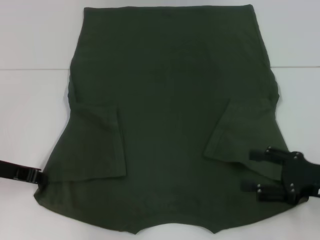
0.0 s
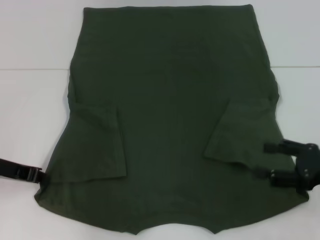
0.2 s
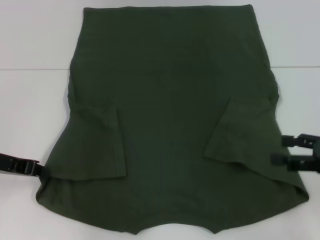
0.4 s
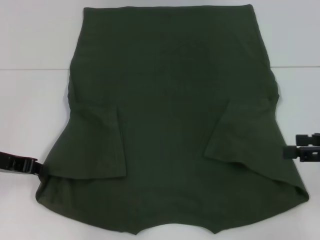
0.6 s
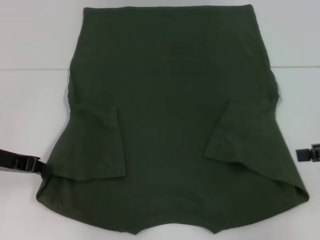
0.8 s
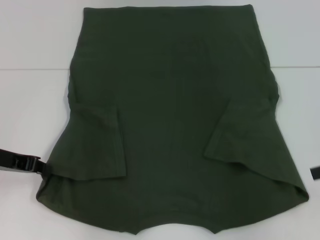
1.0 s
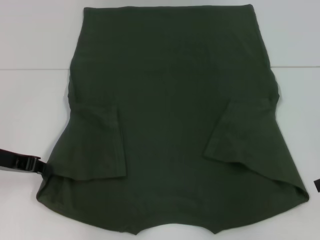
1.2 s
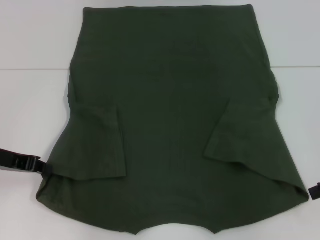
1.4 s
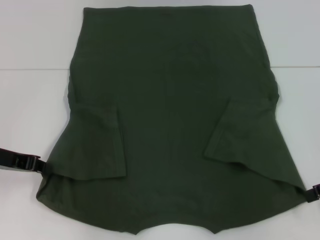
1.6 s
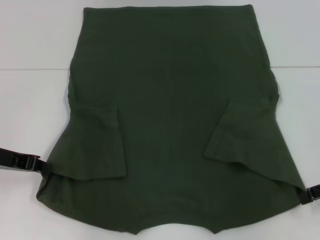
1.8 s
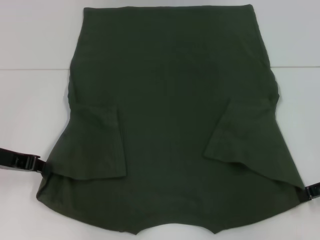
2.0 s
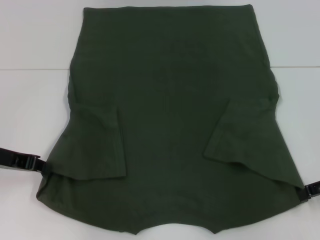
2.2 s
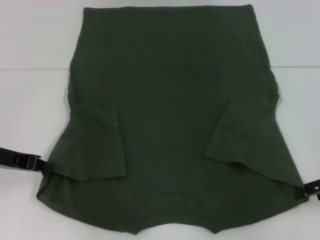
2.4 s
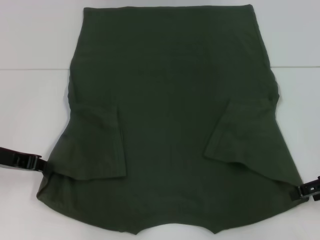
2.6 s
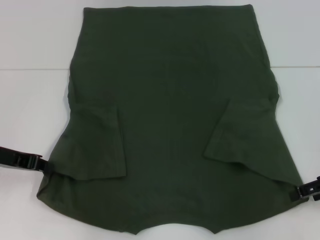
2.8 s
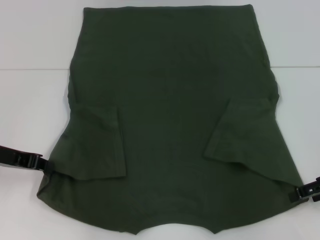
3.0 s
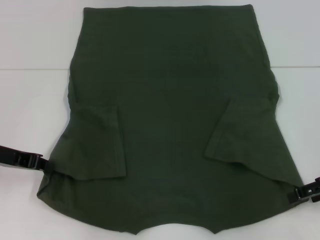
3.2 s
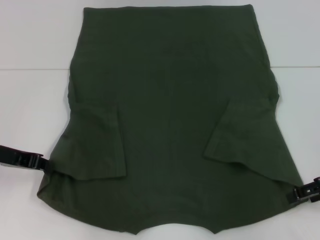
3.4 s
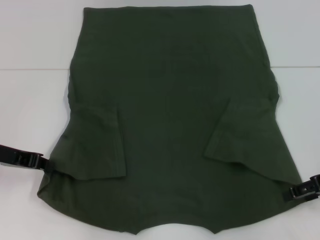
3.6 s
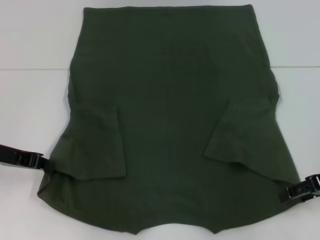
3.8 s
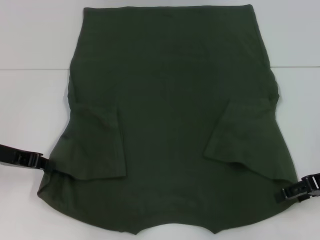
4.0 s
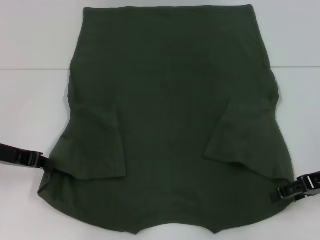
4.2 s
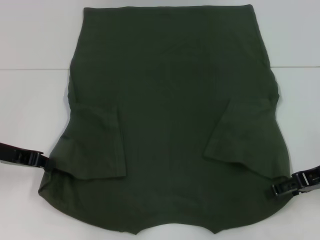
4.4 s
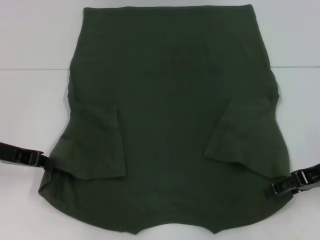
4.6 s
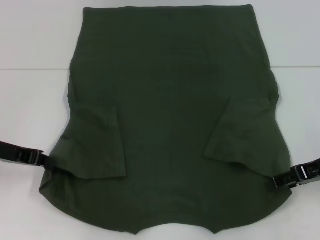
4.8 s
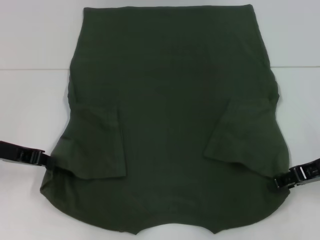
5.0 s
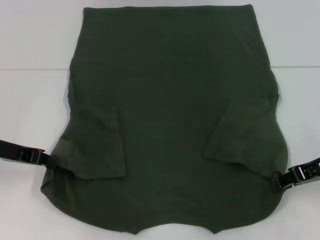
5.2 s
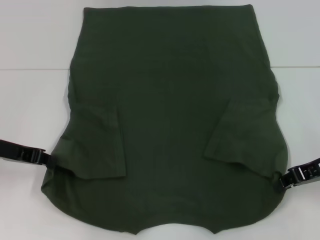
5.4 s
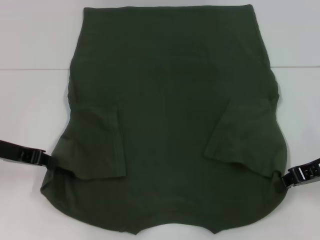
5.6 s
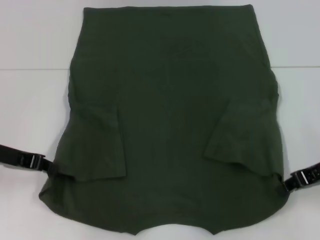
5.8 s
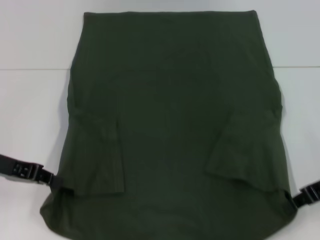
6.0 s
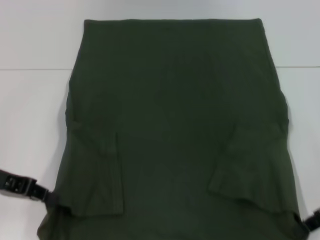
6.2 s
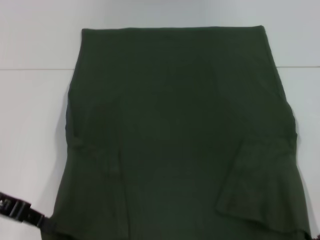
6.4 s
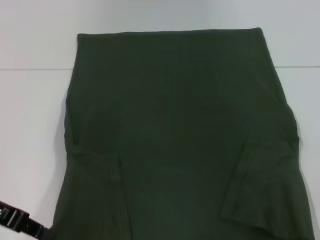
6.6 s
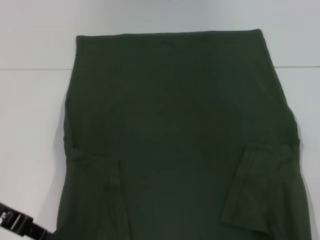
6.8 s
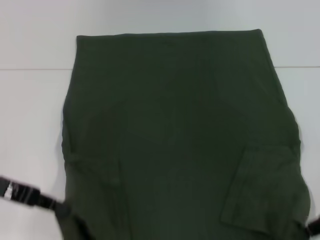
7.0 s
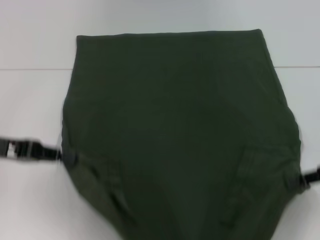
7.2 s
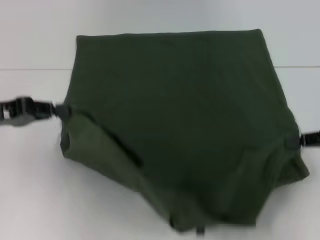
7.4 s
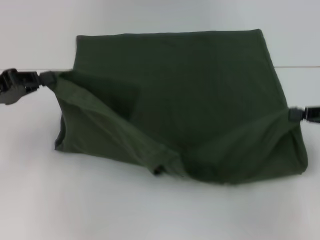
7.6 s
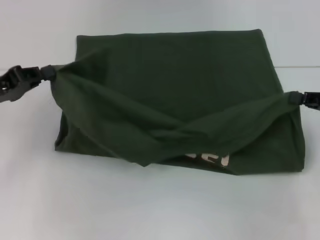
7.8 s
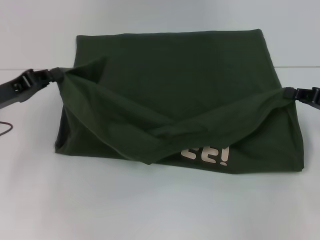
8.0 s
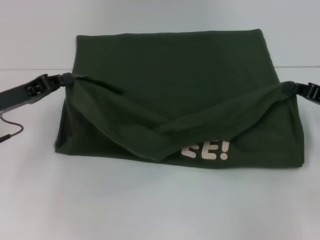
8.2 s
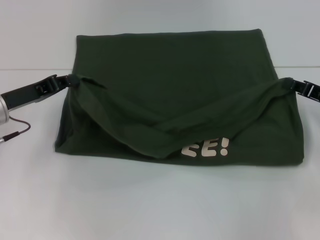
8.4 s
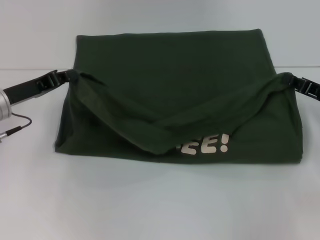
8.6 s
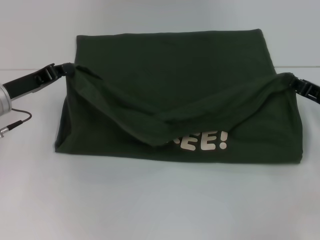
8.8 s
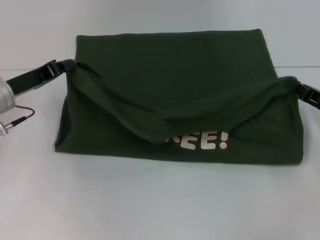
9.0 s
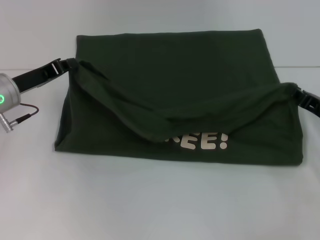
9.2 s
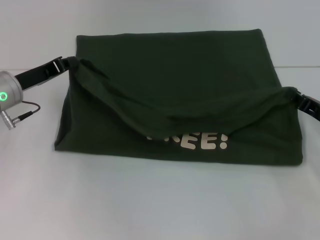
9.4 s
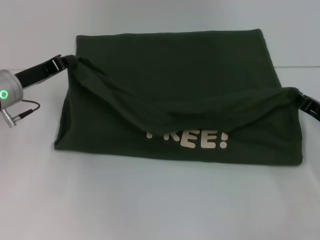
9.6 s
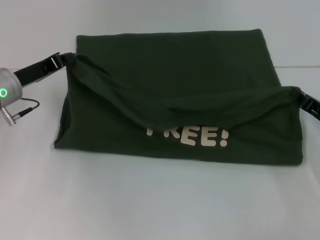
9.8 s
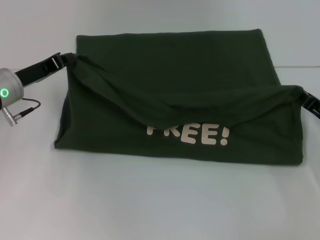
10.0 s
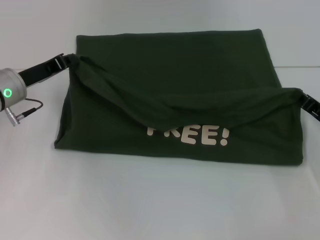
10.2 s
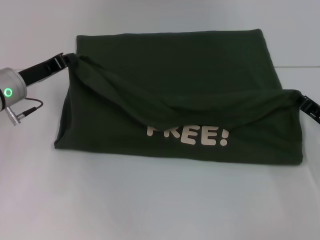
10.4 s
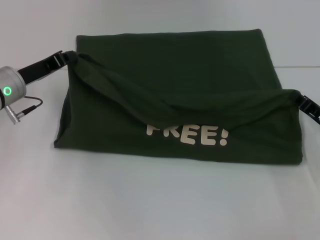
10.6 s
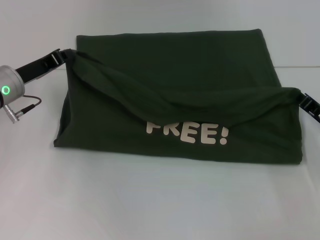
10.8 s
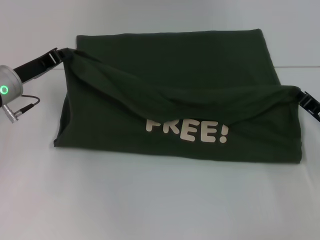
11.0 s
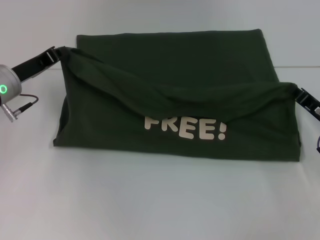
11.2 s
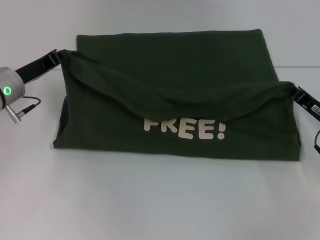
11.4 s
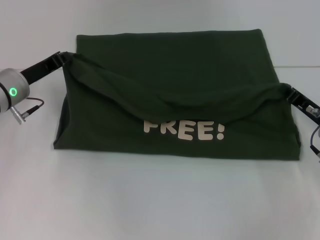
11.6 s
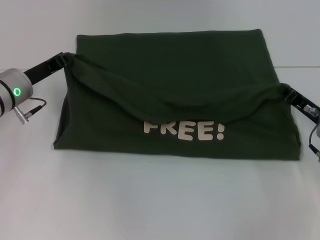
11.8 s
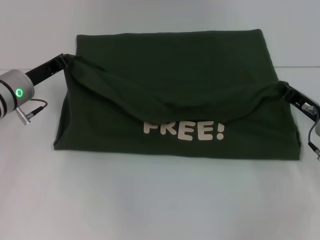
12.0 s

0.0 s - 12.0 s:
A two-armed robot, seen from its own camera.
Step, 0.0 s - 5.6 s: Grab the bottom right corner with your right hand.
0.0 s - 1.6 s: The right gripper goes some 10 cm upward and to the right.
1.6 s - 4.4 s: The grippers move only a little.
4.4 s - 6.0 s: The right gripper closes.
6.0 s - 7.6 s: The right gripper goes some 5 cm to the right.
7.6 s - 9.0 s: The right gripper heads downward, covering approximately 10 cm. The left gripper travels forward and to the right by approximately 10 cm.
9.0 s - 12.0 s: The grippers move only a little.

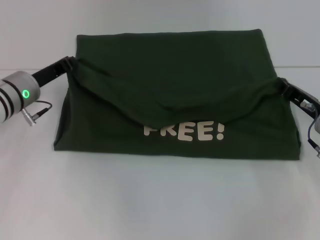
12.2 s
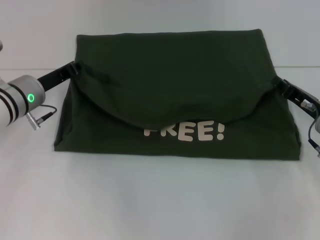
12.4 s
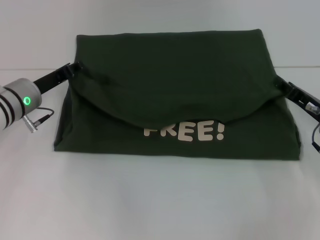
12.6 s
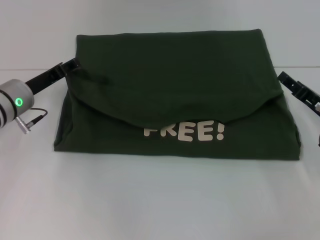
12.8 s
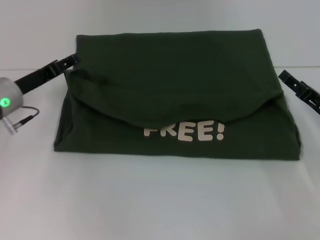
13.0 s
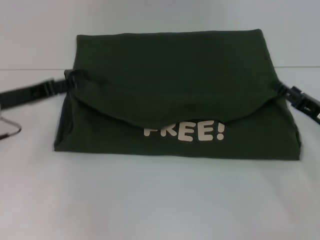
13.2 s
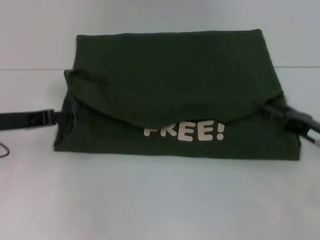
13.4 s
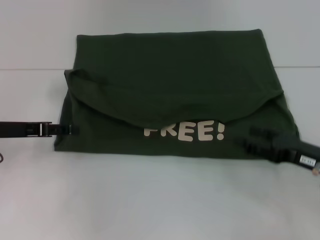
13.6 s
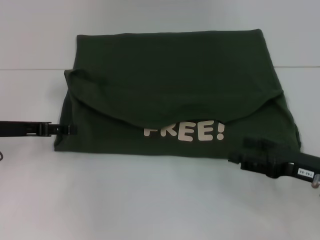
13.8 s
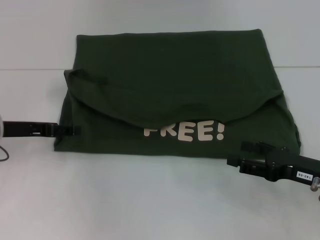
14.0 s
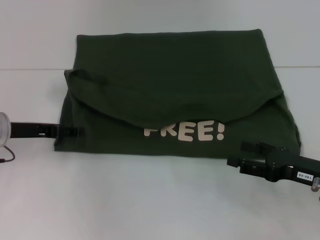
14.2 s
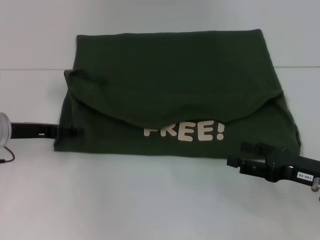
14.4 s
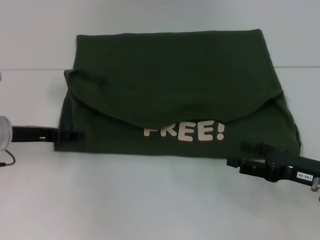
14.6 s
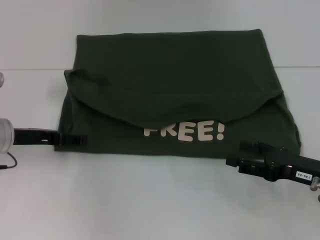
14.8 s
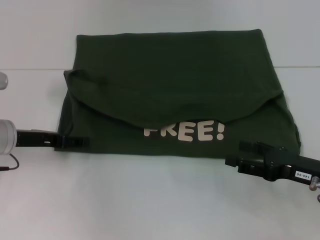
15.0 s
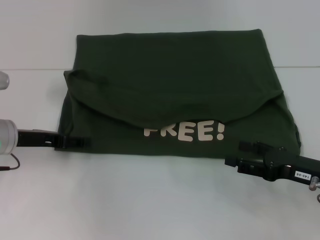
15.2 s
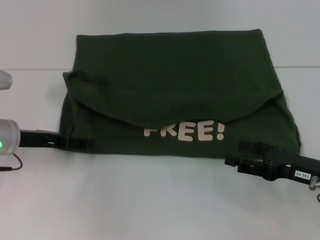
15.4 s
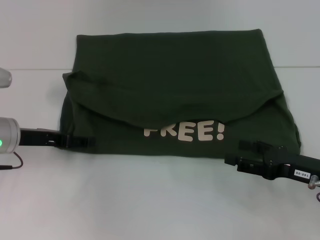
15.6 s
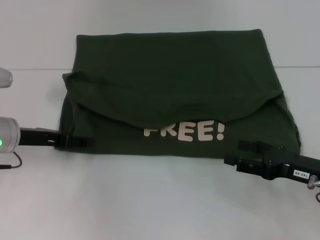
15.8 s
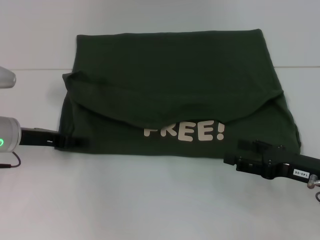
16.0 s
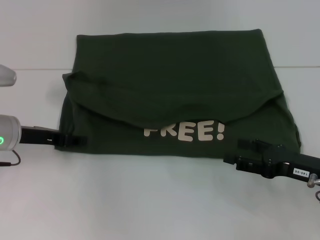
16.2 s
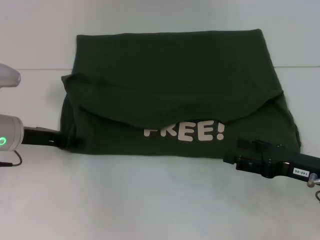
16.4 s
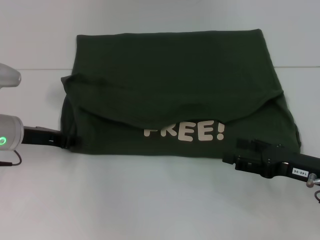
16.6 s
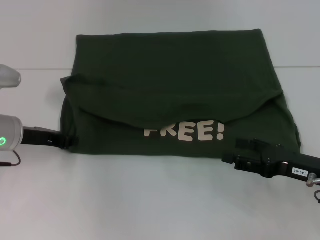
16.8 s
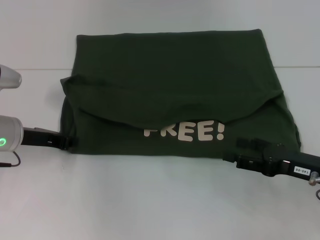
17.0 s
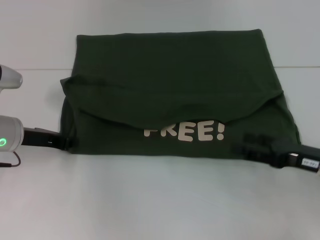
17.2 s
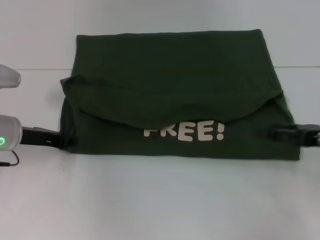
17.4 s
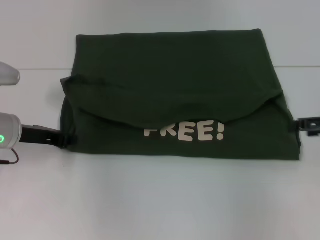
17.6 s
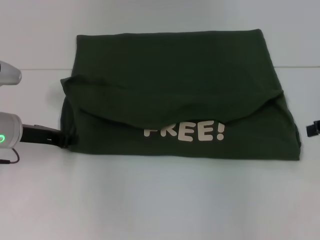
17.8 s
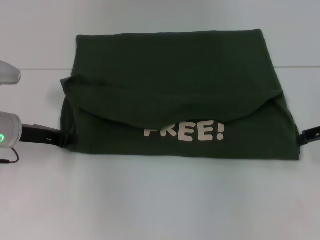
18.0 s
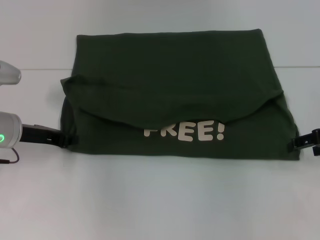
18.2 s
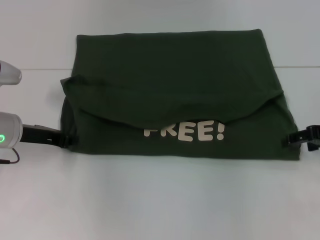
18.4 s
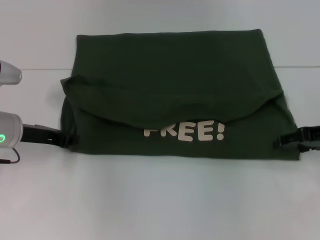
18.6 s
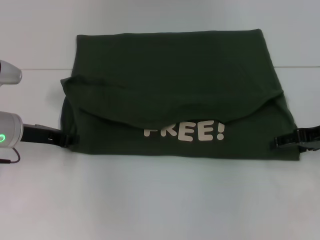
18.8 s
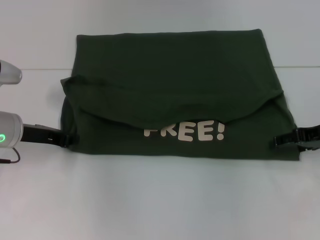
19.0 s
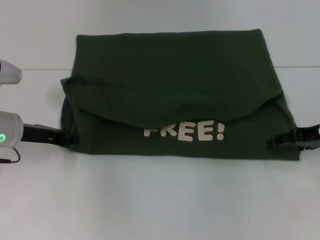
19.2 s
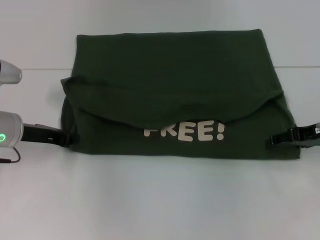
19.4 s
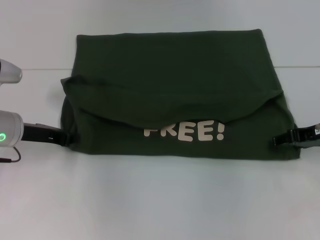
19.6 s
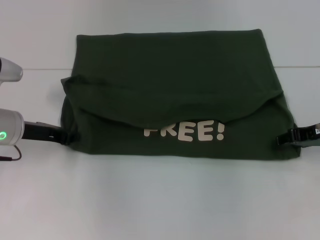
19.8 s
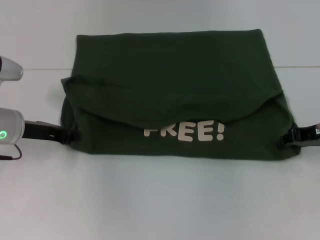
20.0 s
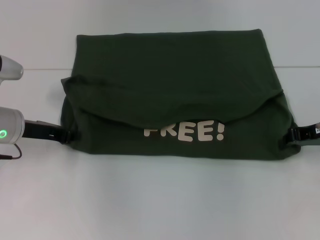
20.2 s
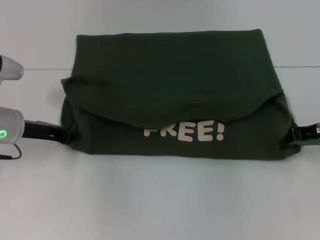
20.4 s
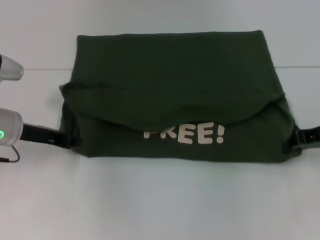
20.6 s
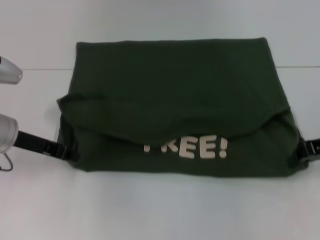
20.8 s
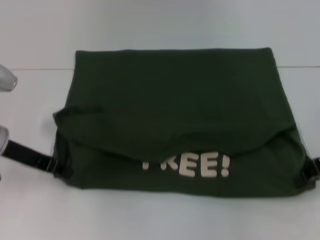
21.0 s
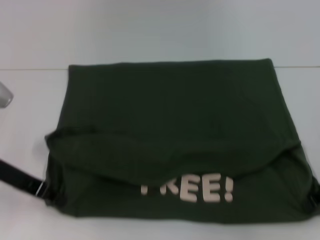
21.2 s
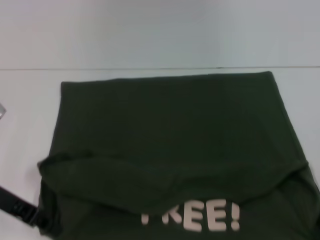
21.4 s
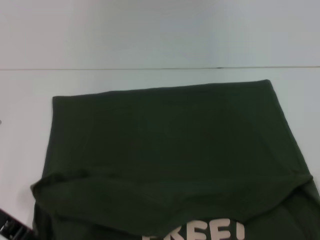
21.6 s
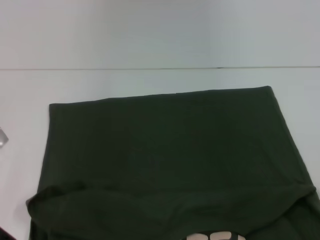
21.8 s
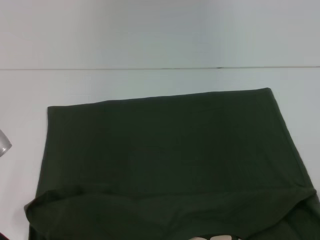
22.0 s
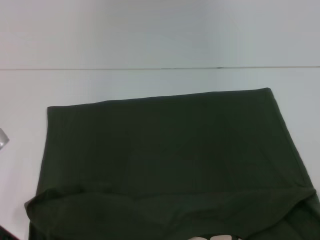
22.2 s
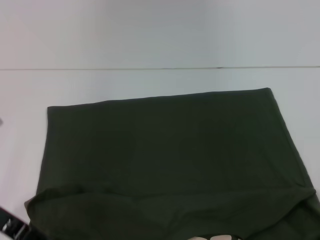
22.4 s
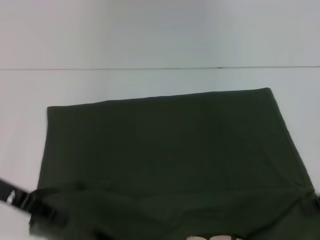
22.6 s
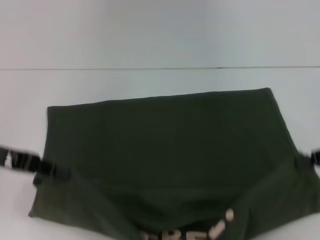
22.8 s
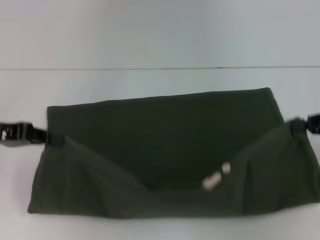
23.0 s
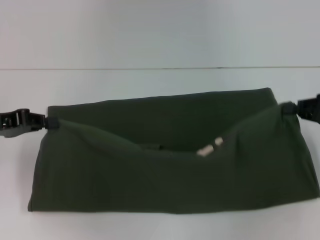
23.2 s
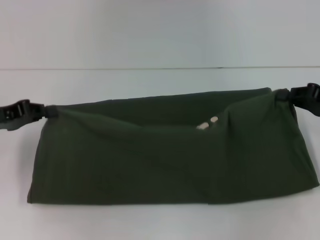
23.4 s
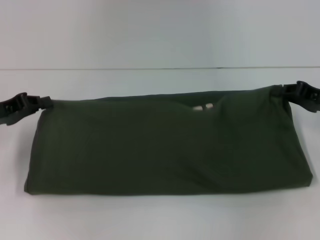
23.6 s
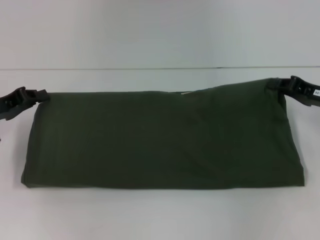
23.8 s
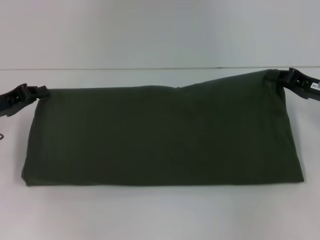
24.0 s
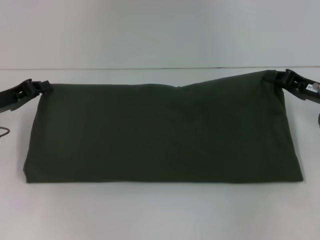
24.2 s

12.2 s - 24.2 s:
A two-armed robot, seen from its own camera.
Step, 12.8 s - 22.0 s: Pull the clothes with your left hand.
Step, 12.8 s - 22.0 s: Pull the clothes with your right hand.
12.2 s - 13.8 s: The right gripper is displaced backward by some 10 cm, and opens up. Meanwhile the left gripper heads backward and to the left, covering approximately 10 cm, and opens.
13.8 s - 15.2 s: The grippers make only small movements.
15.2 s - 16.6 s: The left gripper closes up.
16.6 s - 18.2 s: The right gripper heads upward, forward and to the right, covering some 10 cm.
18.2 s - 19.8 s: The right gripper closes up.
19.8 s - 21.2 s: The right gripper goes roughly 5 cm backward, and closes up. The left gripper moves some 5 cm.
22.6 s - 24.2 s: The right gripper moves forward, some 10 cm, while the left gripper moves forward and downward, roughly 10 cm.
